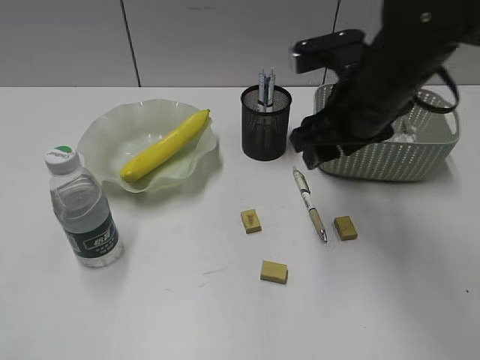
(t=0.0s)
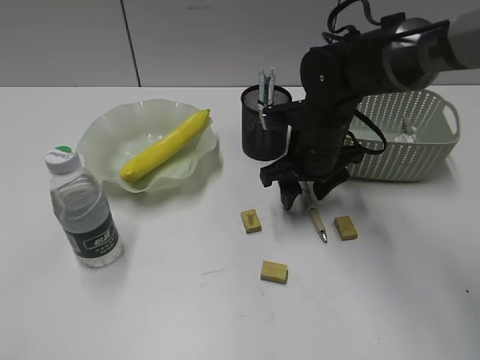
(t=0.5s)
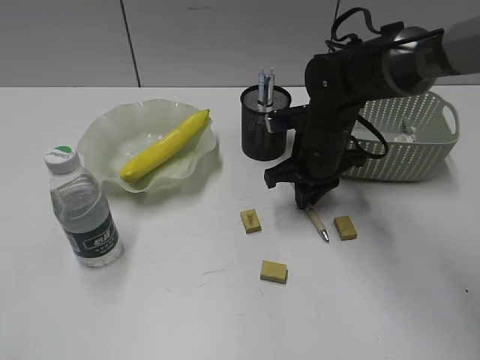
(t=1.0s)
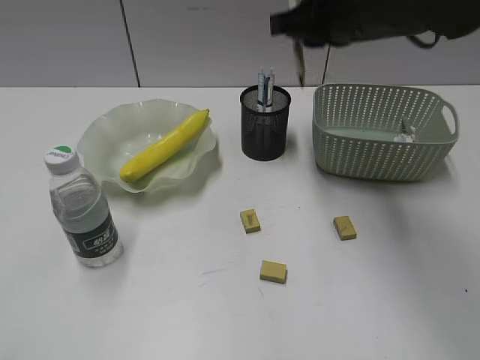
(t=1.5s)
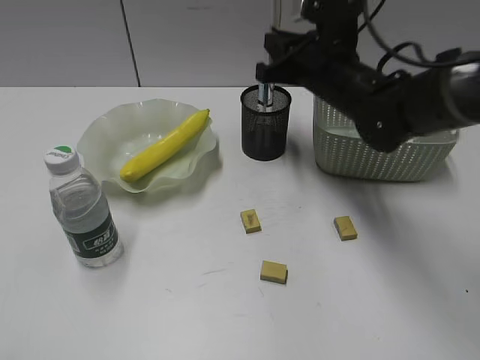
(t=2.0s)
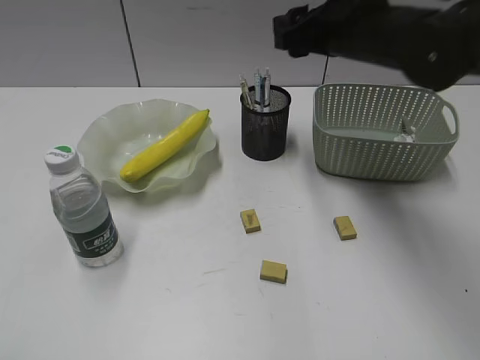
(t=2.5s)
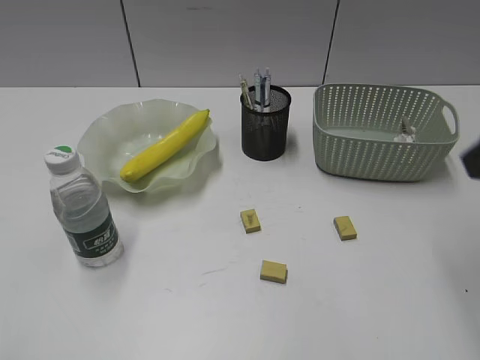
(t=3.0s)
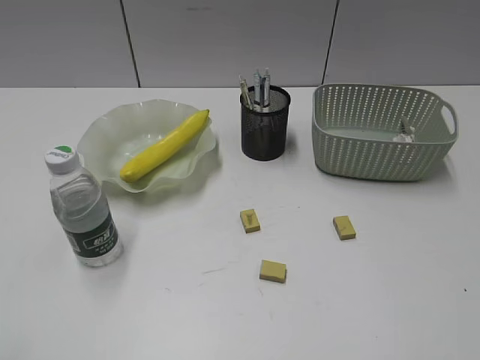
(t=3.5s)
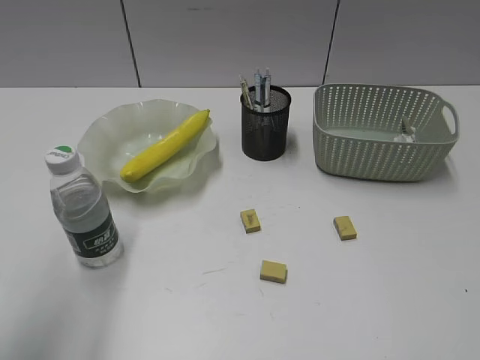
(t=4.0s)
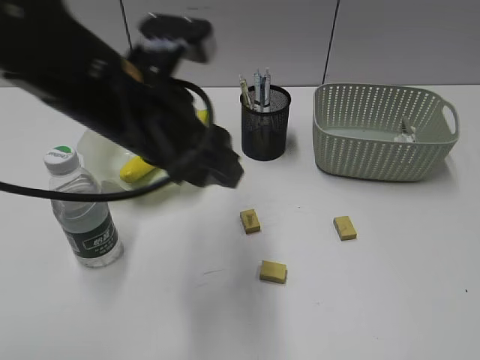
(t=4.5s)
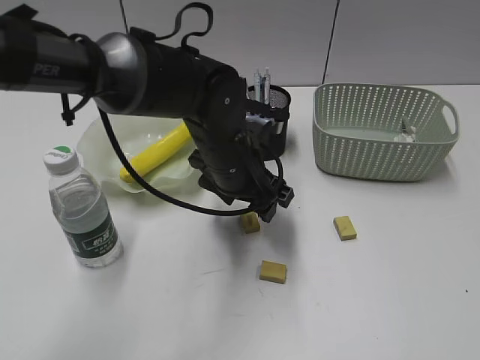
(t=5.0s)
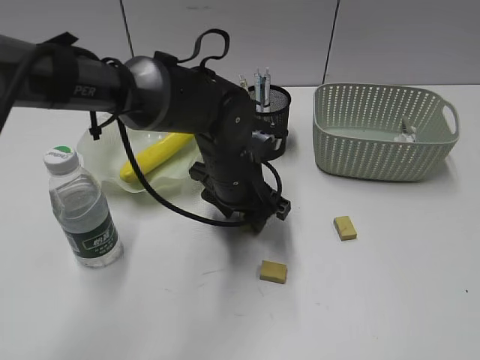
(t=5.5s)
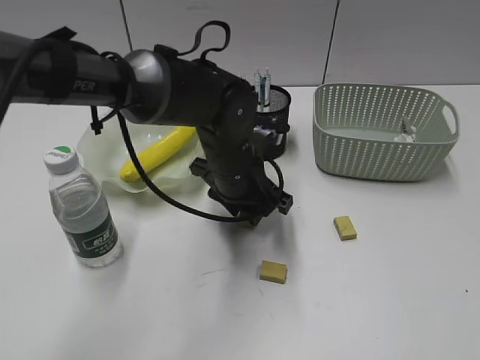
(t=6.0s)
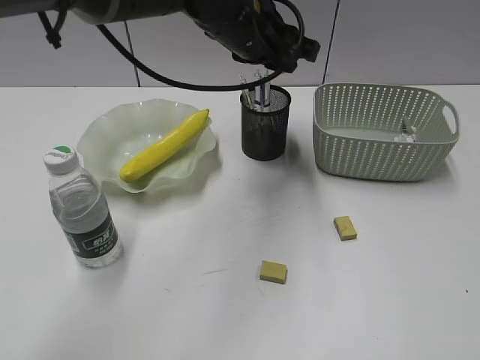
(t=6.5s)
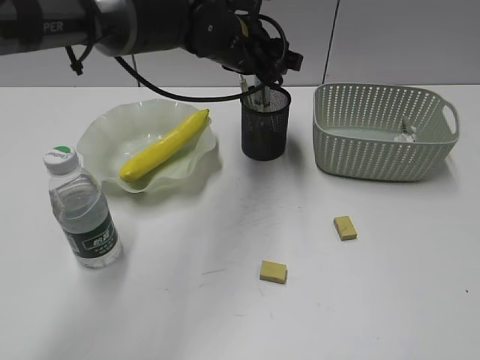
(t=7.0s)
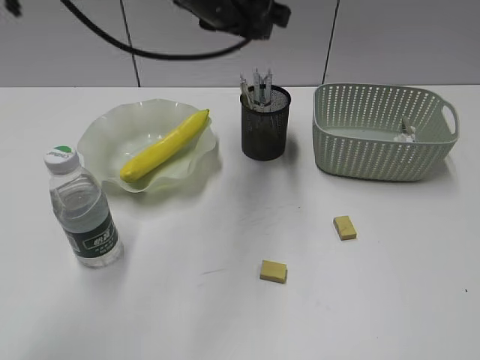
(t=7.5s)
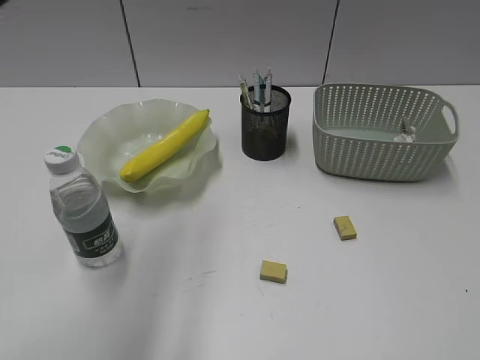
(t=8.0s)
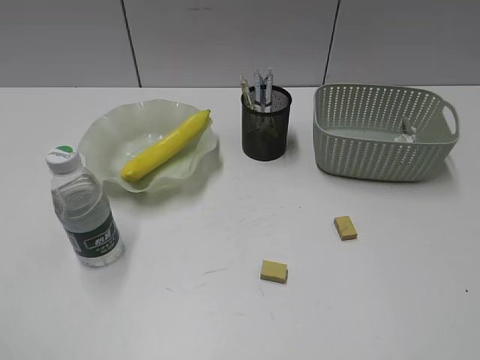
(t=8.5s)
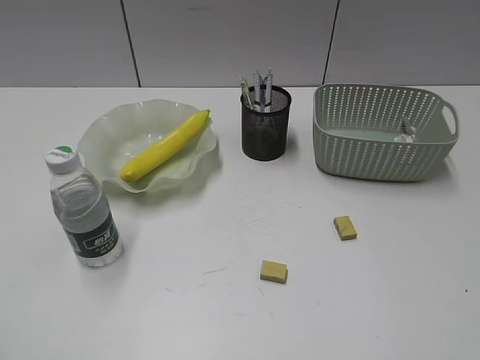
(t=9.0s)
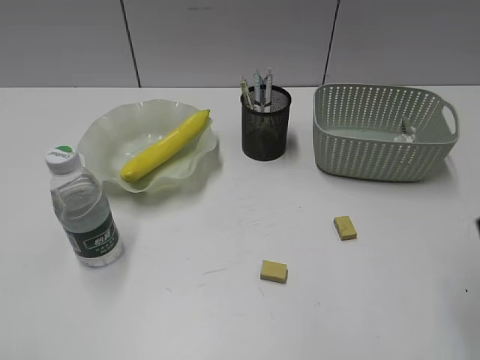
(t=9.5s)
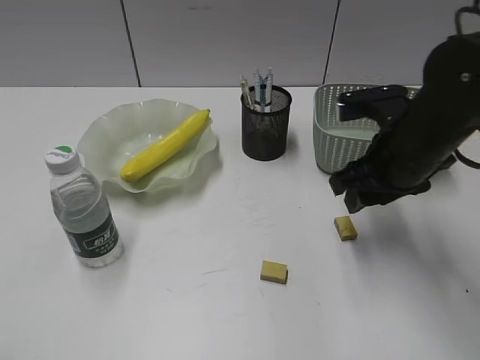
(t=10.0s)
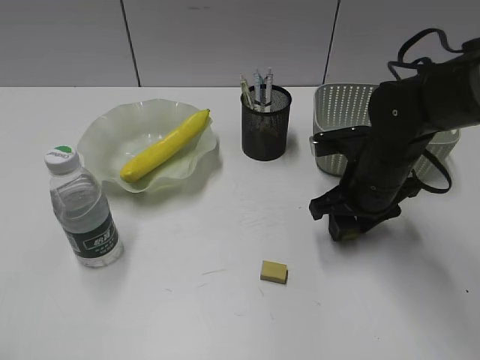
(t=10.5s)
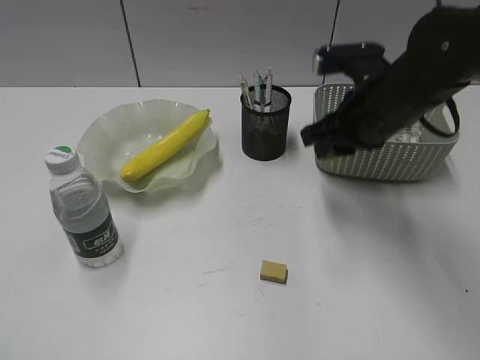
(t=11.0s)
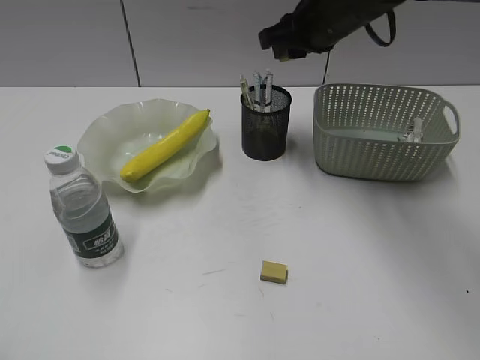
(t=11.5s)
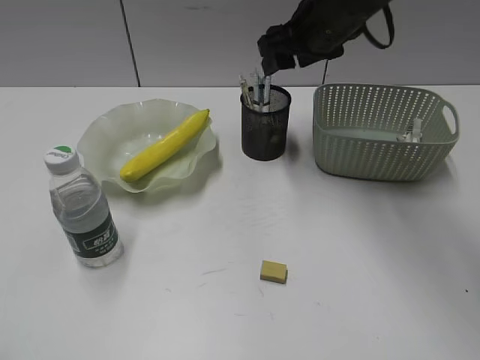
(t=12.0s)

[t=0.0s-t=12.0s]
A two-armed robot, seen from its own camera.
Step, t=1.5s to t=2.0s: Place the yellow pen in pen holder with right gripper.
Step, t=2.5s to t=5.5s: Grasp the eraser with left gripper.
Step, t=6.0s to t=7.0s: Place the eraser in pen holder with left gripper.
Step, t=7.5s to t=10.5s: Grasp the eraser with right gripper.
Step, t=11.0s to t=11.5s: Place the eraser in pen holder with right gripper.
t=0.0s to t=2.0s: The right gripper swings up and down, about 20 cm each way, with 2 reversals, and closes.
t=2.0s to t=4.0s: The right gripper moves backward and to the right, about 40 cm, and opens up, while the left gripper heads forward and to the right, covering about 15 cm.
t=4.0s to t=6.0s: The left gripper travels to the right, forward and downward by approximately 35 cm, and closes.
t=6.0s to t=8.0s: The left gripper moves upward, to the left and backward, roughly 35 cm.
t=8.0s to t=10.0s: The left gripper travels backward, to the left and downward by approximately 30 cm. The right gripper moves forward and to the left, roughly 35 cm.
t=10.0s to t=12.0s: The right gripper travels forward, upward and to the left by about 15 cm, and closes, then opens again.

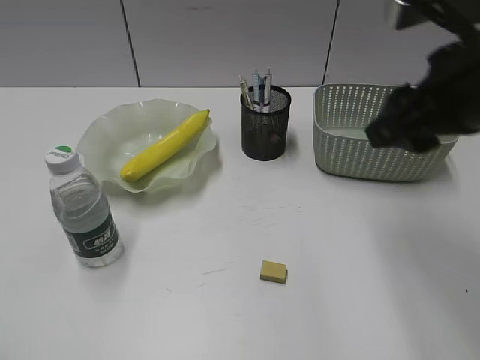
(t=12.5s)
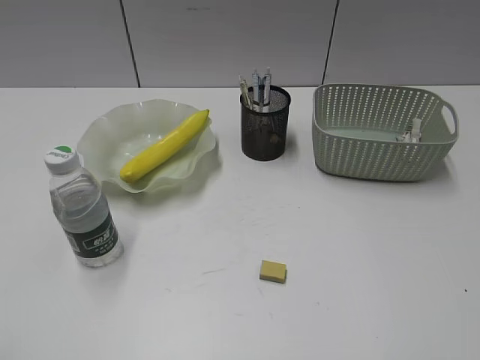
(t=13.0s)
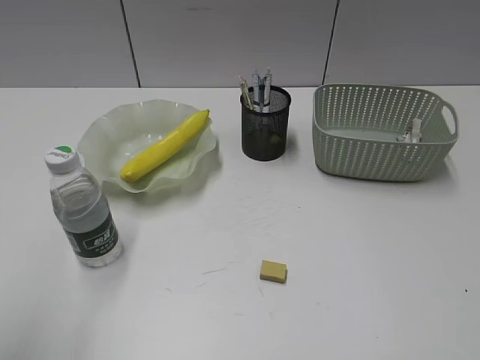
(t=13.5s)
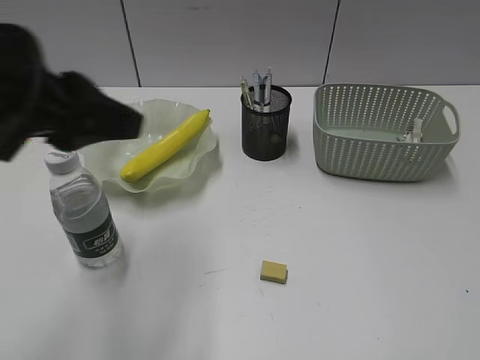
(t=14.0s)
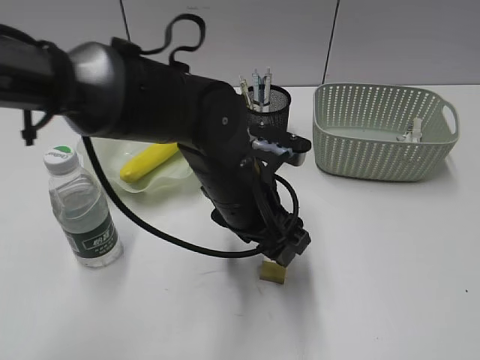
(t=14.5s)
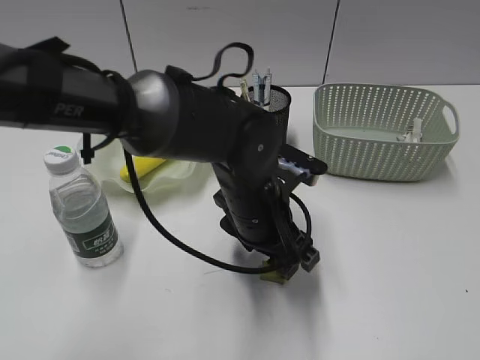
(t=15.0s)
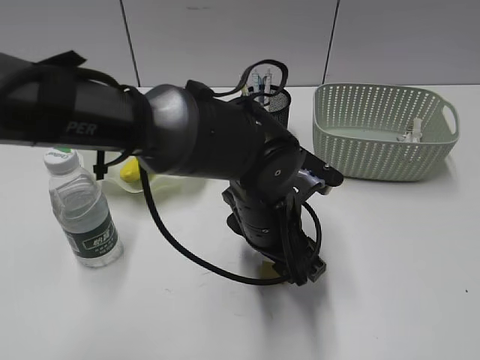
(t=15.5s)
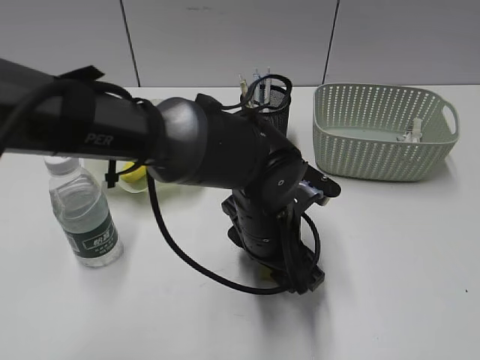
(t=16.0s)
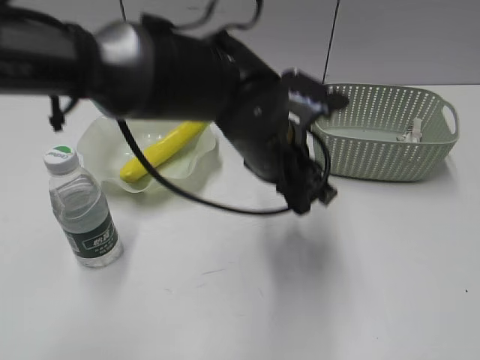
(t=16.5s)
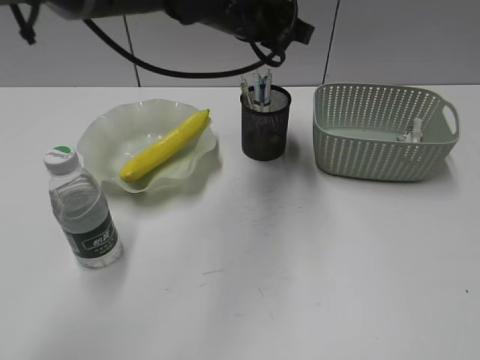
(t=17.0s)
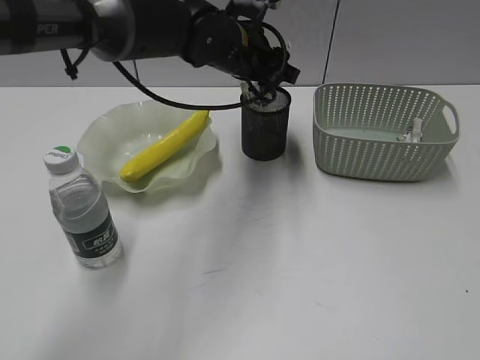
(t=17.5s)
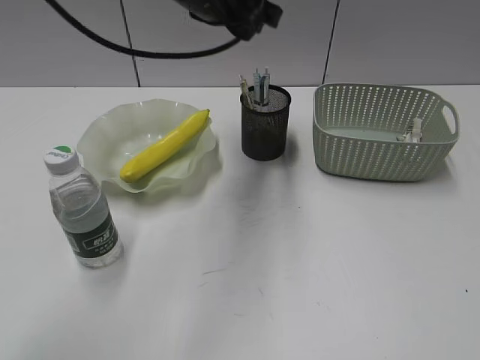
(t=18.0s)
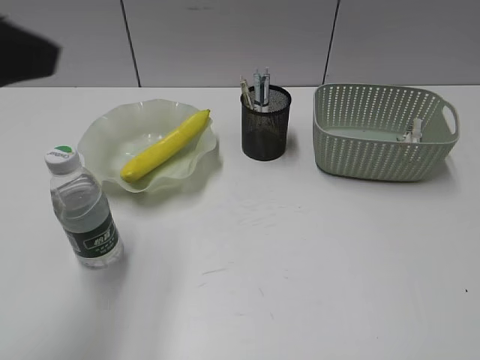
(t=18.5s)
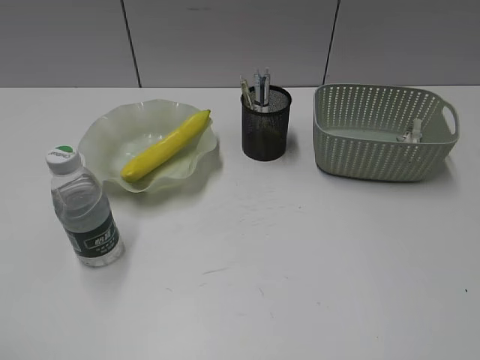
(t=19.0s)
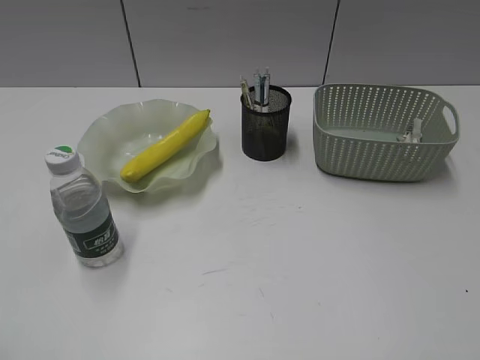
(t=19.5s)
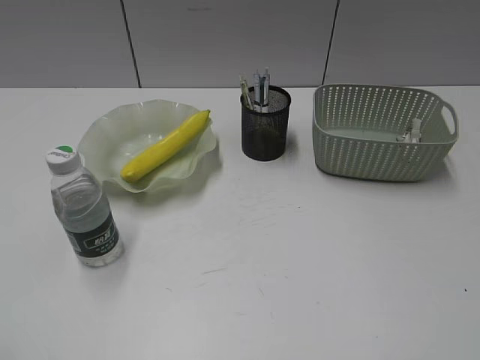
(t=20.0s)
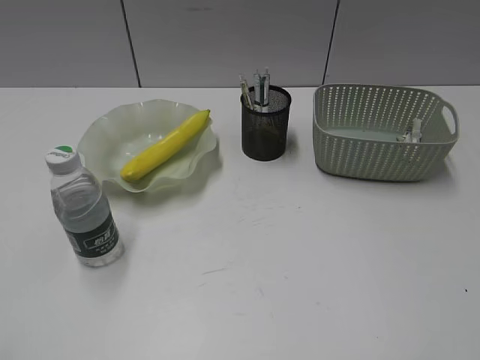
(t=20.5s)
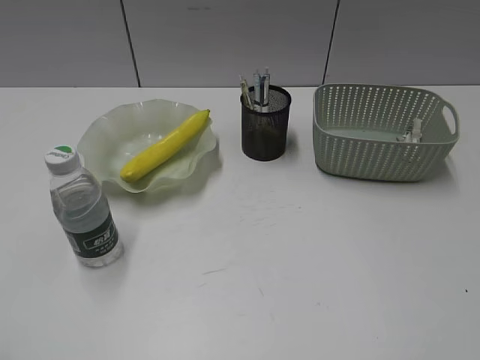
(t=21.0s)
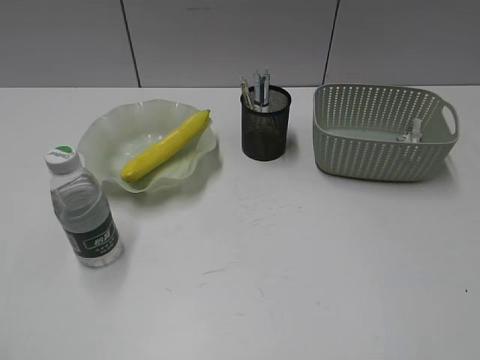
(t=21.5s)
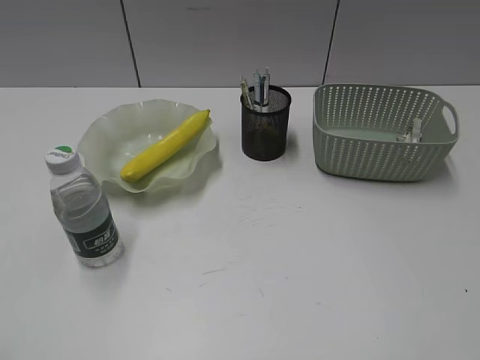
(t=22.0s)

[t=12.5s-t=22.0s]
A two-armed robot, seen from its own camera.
Step, t=12.5s to t=16.0s: Grasp the eraser with left gripper.
Step, t=16.5s to t=17.5s: Place the eraser in pen holder with left gripper.
t=12.5s to t=14.5s: The right gripper travels backward and to the right by about 25 cm. Meanwhile the left gripper heads to the right, forward and downward, covering roughly 40 cm.
t=14.5s to t=16.5s: The left gripper changes place by some 5 cm, and closes up.
t=16.5s to t=18.0s: The left gripper travels upward, forward and to the left by approximately 15 cm.
t=18.0s to t=20.0s: The left gripper travels backward and to the left by about 50 cm.

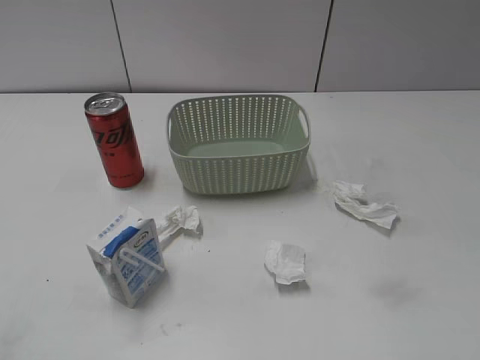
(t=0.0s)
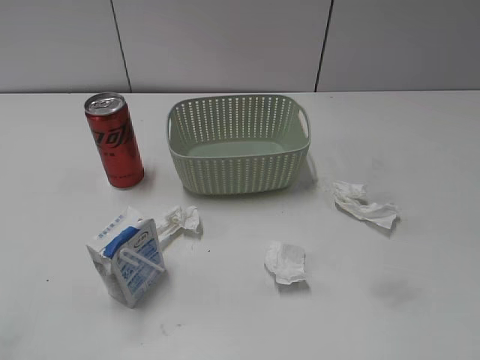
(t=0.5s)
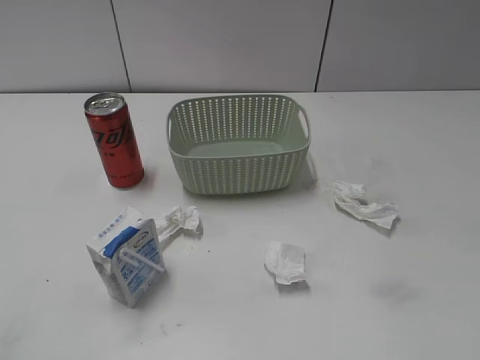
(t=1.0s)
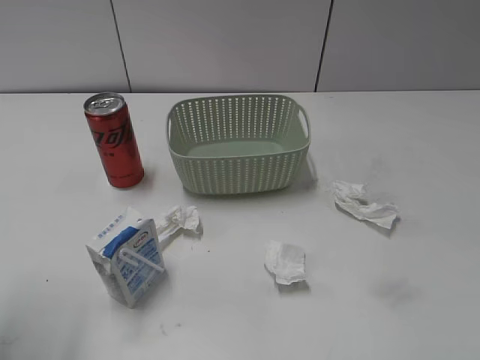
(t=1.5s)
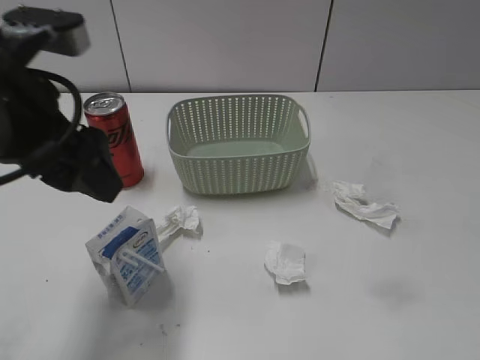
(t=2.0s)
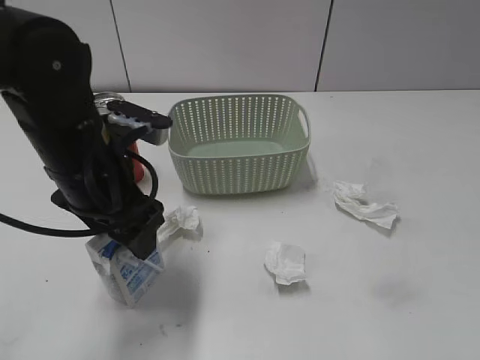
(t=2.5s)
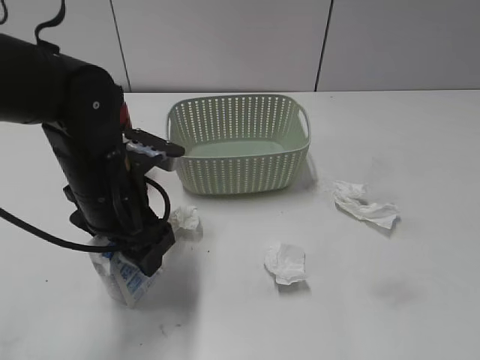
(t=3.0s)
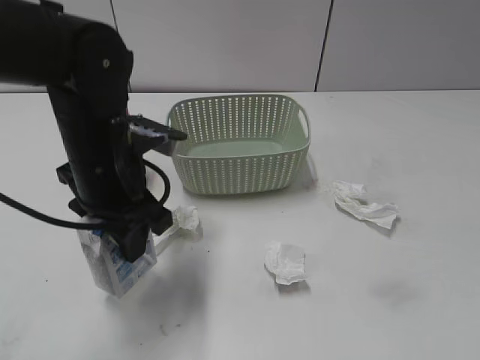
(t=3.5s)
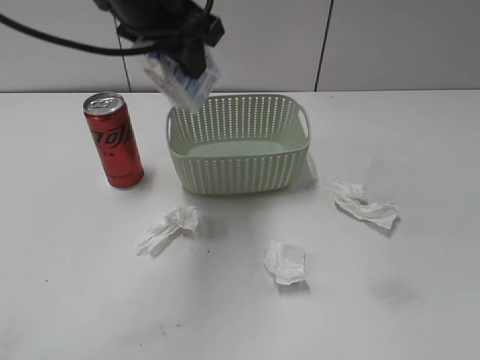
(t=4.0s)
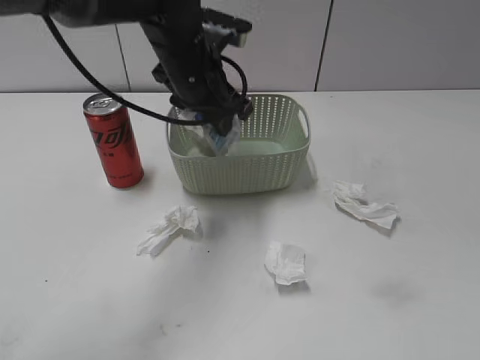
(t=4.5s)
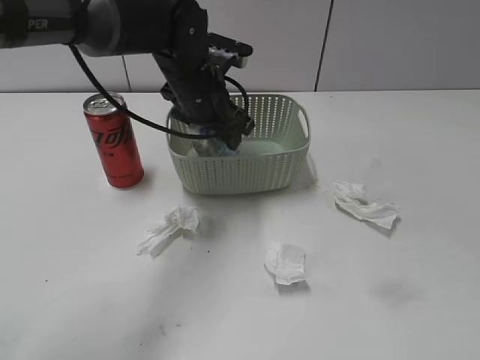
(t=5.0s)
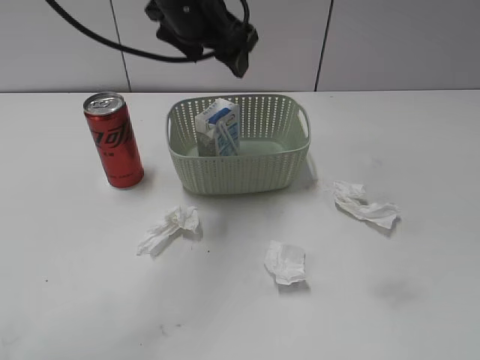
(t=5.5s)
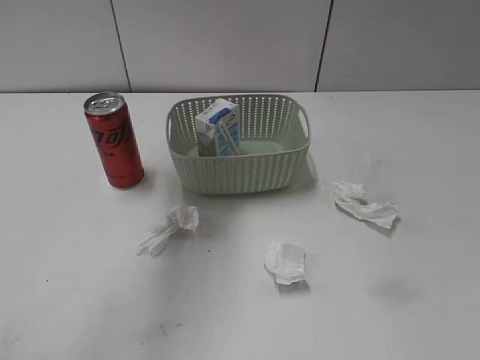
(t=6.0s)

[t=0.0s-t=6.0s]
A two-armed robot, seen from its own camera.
Step, t=2.0s to t=3.0s: Grasp the milk with left gripper.
Step, t=3.5s to t=5.5s: Place the milk in the basket with left gripper.
t=2.0s to t=4.0s: The left gripper travels forward and to the right by approximately 15 cm, reaches roughly 15 cm downward, then returns, and closes its fingers.
t=4.0s to t=6.0s: The left gripper goes downward and returns, approximately 15 cm each way, and opens its fingers.
